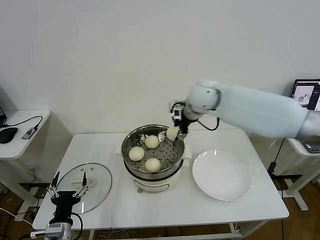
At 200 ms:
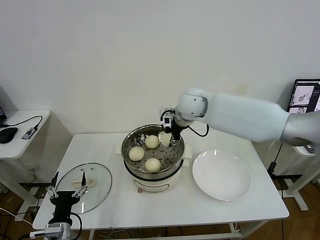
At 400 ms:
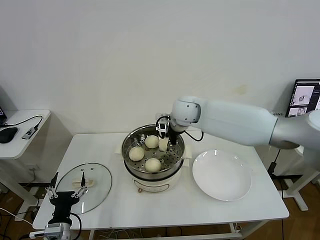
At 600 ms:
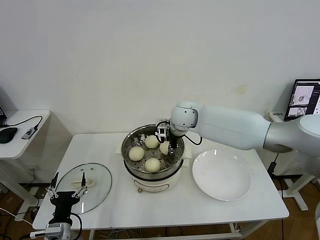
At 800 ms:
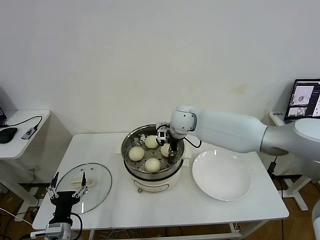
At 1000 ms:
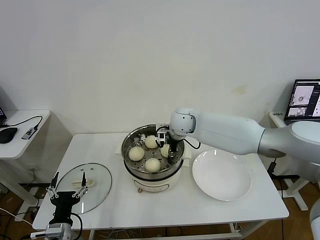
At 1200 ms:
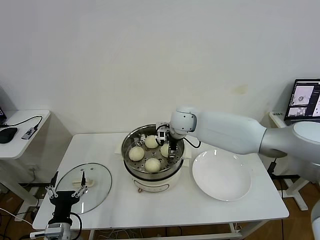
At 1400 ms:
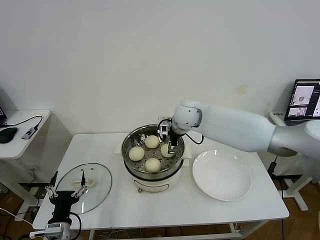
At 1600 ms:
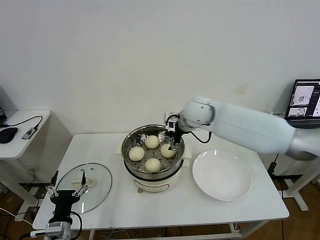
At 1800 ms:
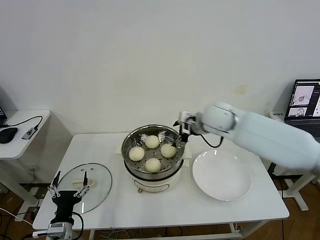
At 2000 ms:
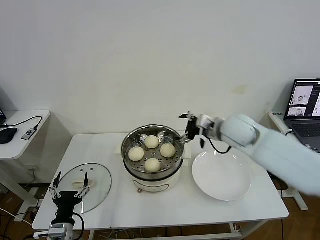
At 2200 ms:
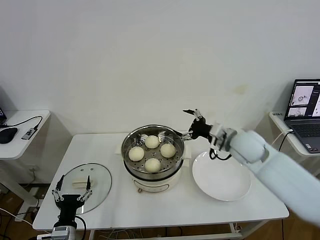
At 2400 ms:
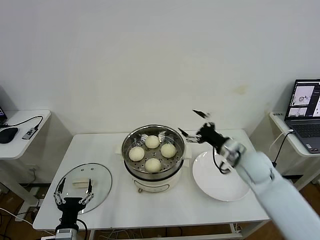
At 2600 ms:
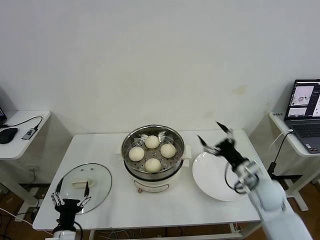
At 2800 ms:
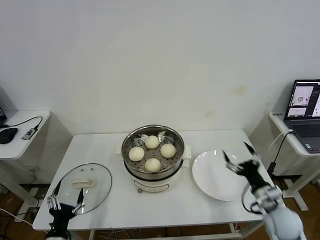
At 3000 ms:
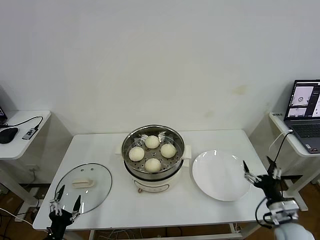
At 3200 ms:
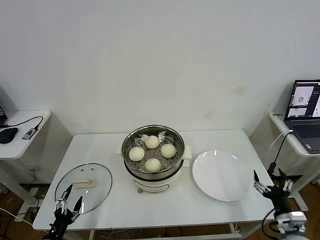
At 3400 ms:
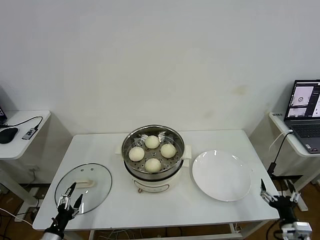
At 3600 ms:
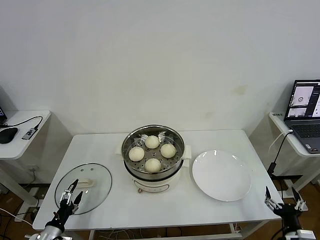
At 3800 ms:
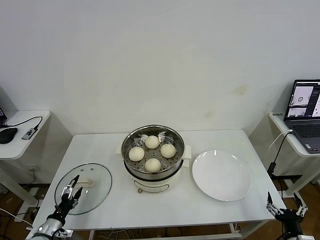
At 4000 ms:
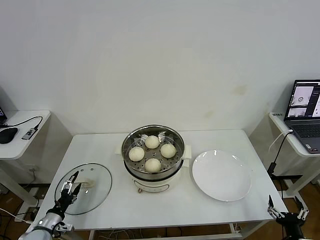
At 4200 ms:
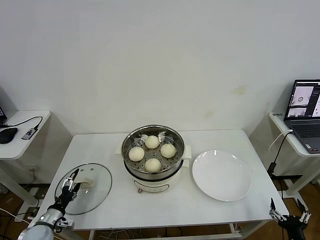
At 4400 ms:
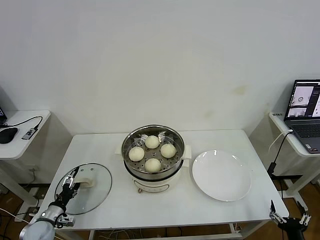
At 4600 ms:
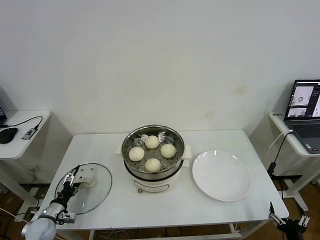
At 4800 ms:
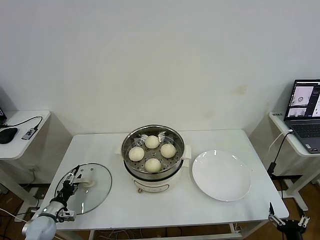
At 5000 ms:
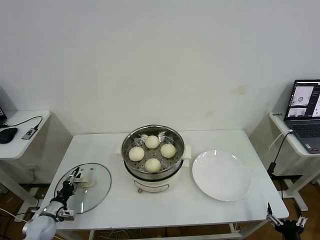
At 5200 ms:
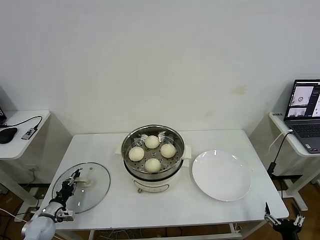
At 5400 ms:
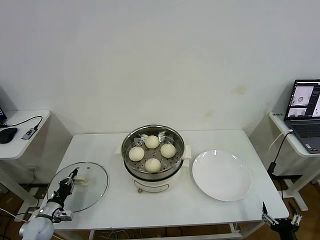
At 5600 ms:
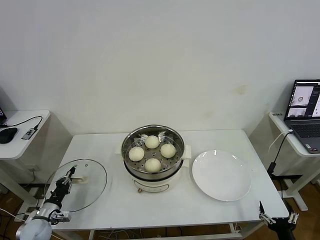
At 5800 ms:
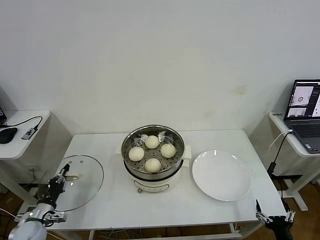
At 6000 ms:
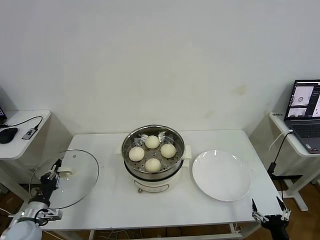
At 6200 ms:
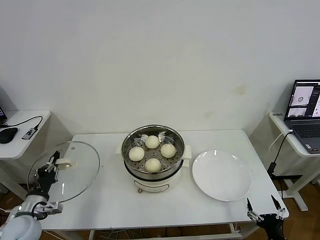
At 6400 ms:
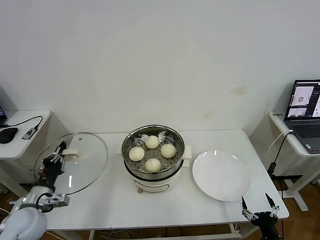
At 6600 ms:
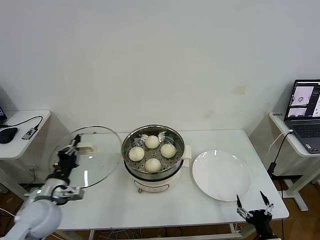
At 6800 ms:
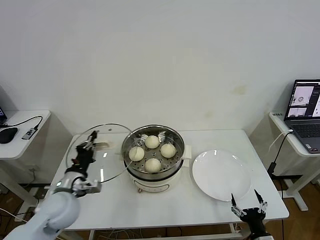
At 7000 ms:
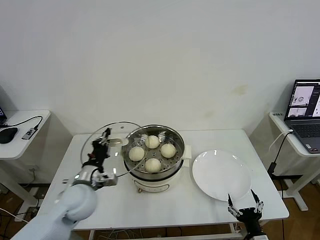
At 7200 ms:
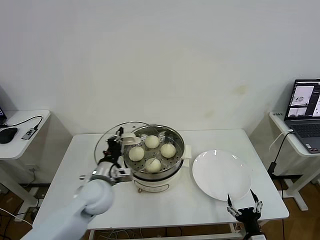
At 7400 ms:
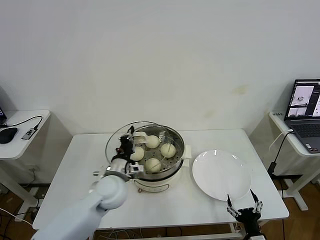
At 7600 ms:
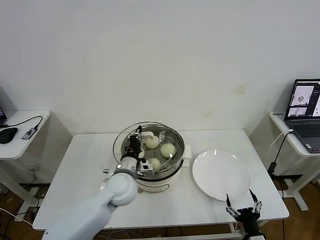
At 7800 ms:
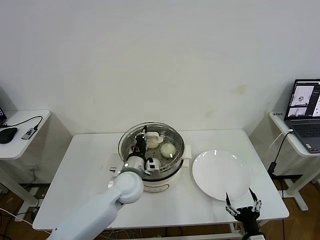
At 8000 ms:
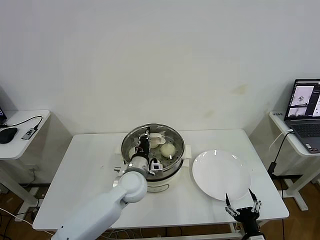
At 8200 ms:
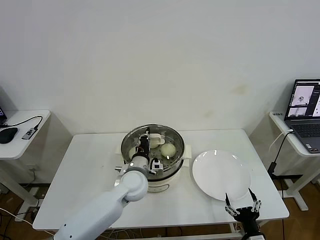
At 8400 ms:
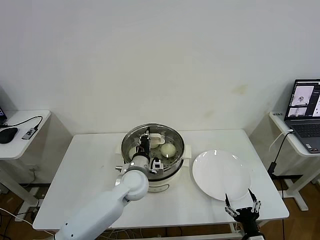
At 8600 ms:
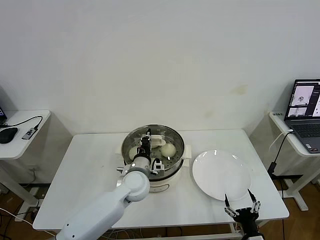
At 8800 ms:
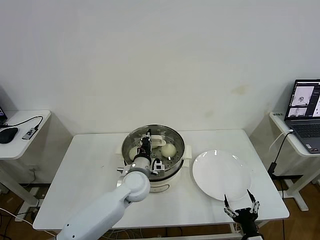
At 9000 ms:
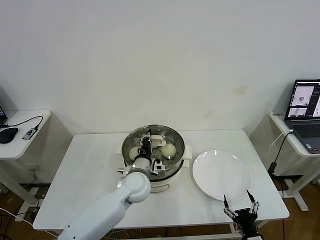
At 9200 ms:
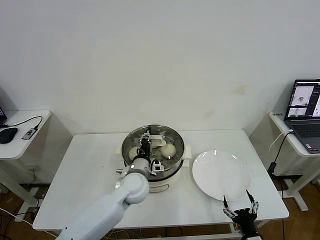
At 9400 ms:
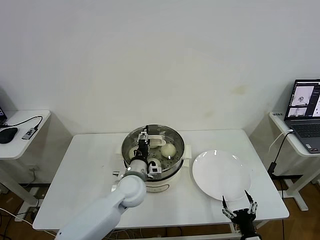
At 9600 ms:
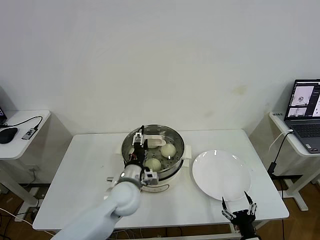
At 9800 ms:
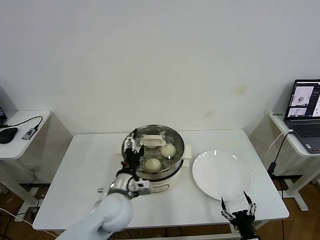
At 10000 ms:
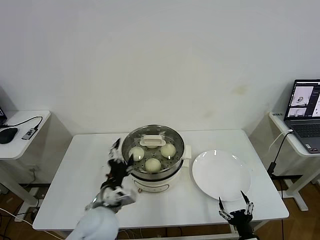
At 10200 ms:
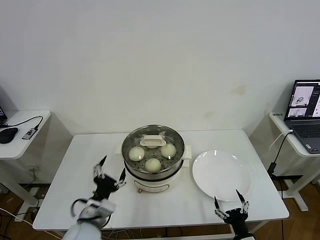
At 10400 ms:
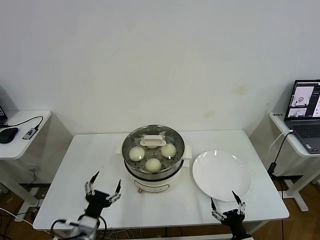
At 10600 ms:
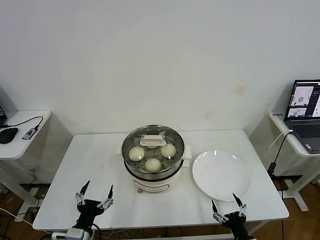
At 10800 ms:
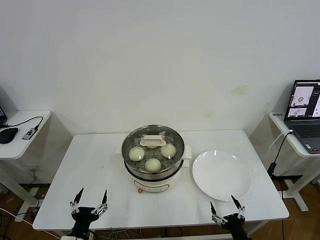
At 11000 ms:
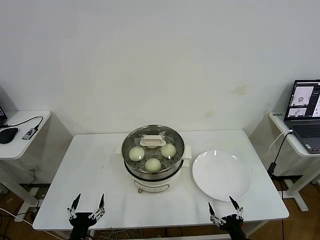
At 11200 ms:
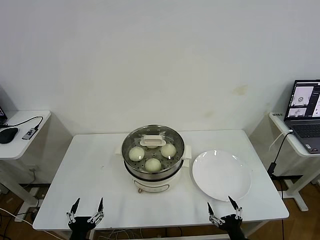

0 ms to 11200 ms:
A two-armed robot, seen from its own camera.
Task of the whole recording: take steamed baozi put them in steamer then cover it.
Step, 0 ms to 1400 ms: Place the baozi on the steamer with right gripper.
Step, 1600 ms to 5400 ms: Grasp the pot lid with left gripper.
Step, 5600 ms to 9800 ms: Place the pot lid on the steamer with left gripper.
0 ms to 1600 ms: The right gripper opens.
1600 ms to 3200 ms: The left gripper shifts some 10 cm to the left and downward, while the right gripper shifts roughly 50 cm backward, to the right and downward.
3200 ms to 4800 ms: The left gripper is displaced forward and to the left by roughly 15 cm. The right gripper is displaced backward and downward by about 10 cm.
4800 ms to 6400 ms: The right gripper shifts some 5 cm to the left, while the left gripper moves upward, about 15 cm, and closes.
6400 ms to 8000 ms: The left gripper moves to the right and forward, about 30 cm, while the right gripper is displaced to the left by about 5 cm.
8000 ms to 9600 ms: The left gripper opens.
9600 ms to 11200 ms: The left gripper is displaced backward, to the left and downward by about 30 cm.
